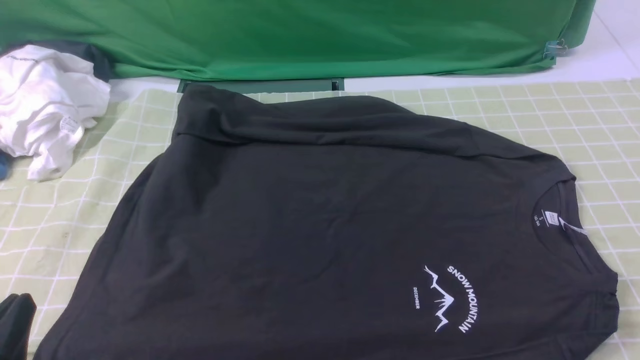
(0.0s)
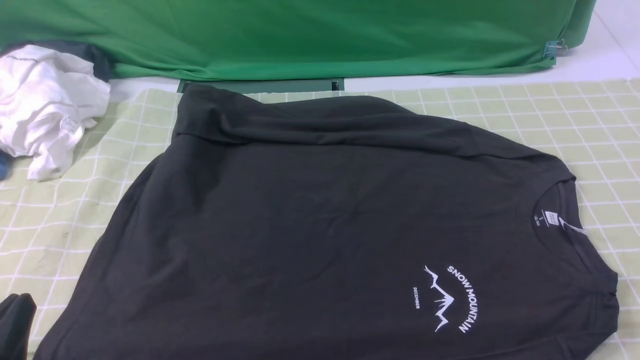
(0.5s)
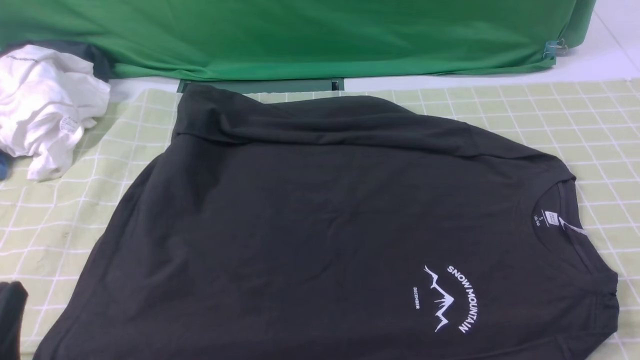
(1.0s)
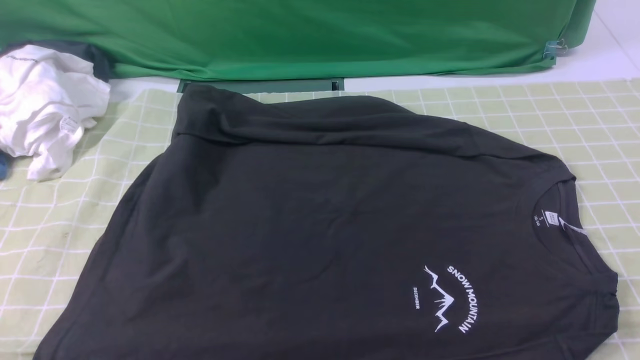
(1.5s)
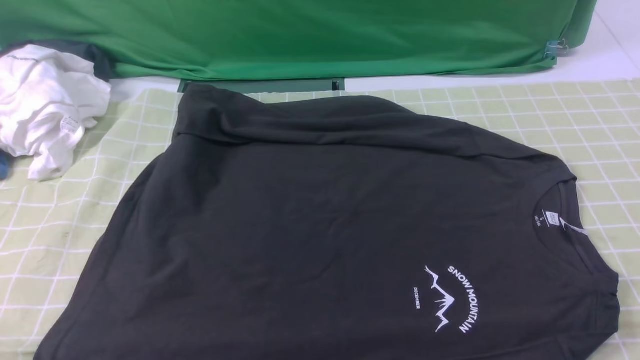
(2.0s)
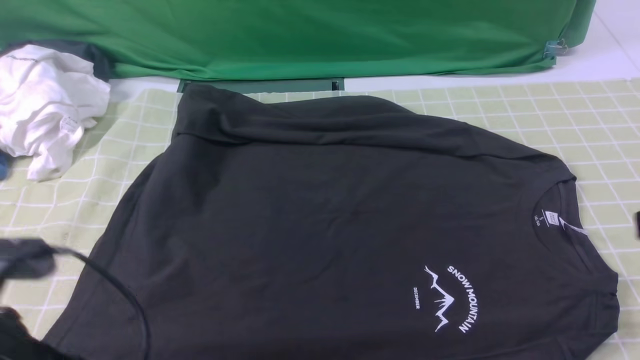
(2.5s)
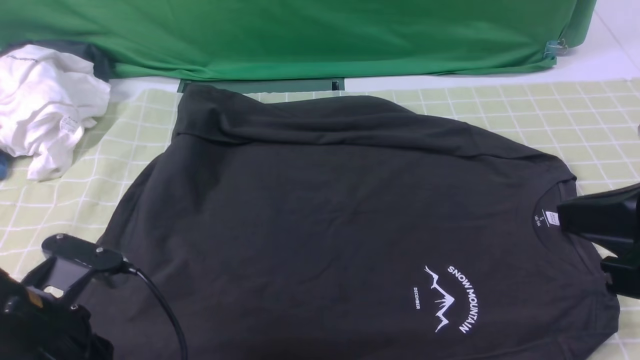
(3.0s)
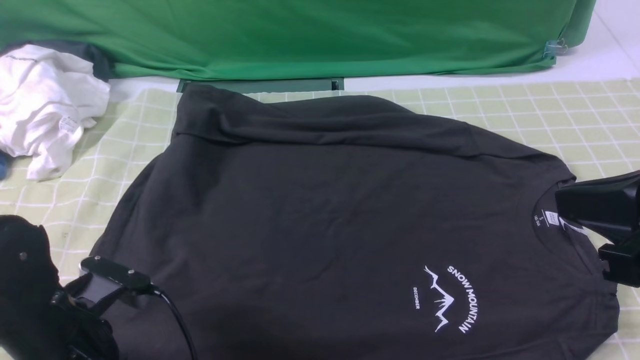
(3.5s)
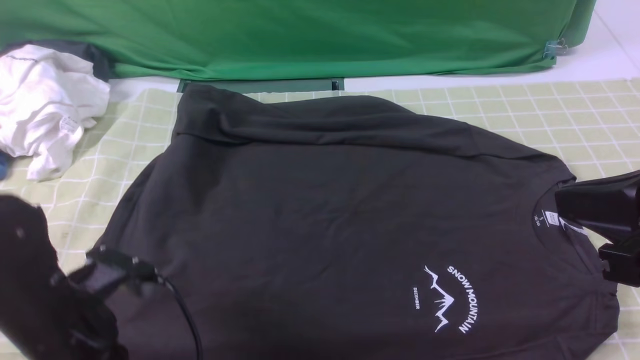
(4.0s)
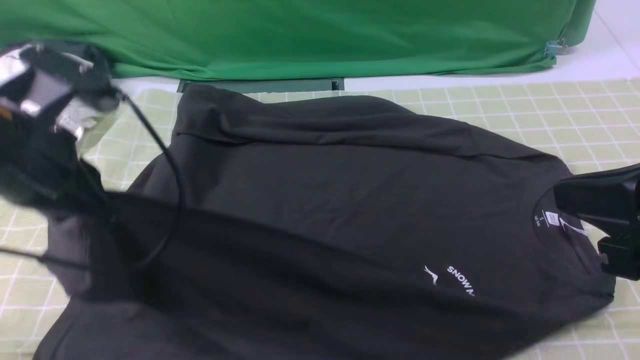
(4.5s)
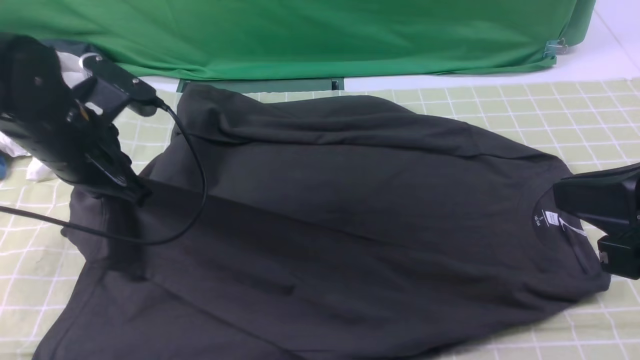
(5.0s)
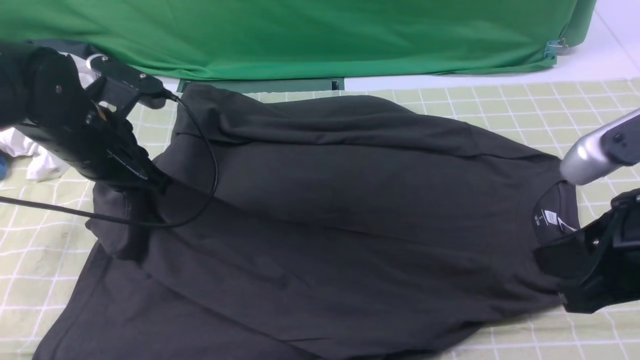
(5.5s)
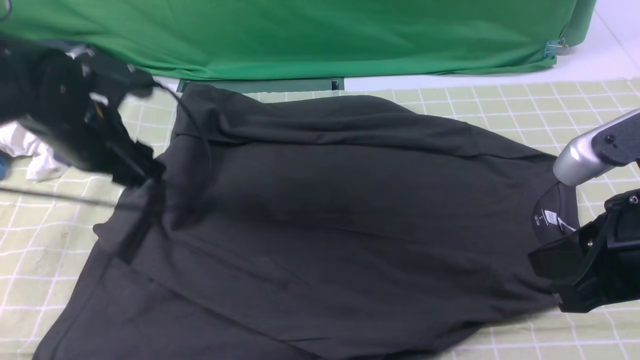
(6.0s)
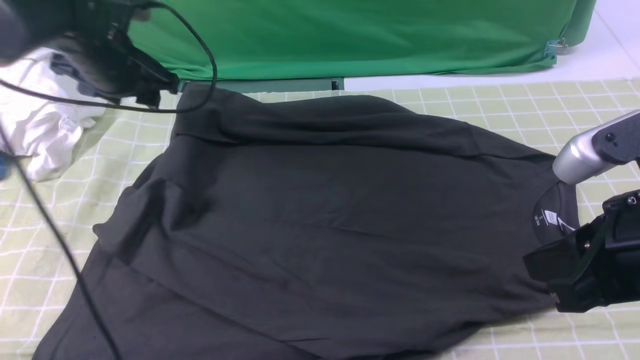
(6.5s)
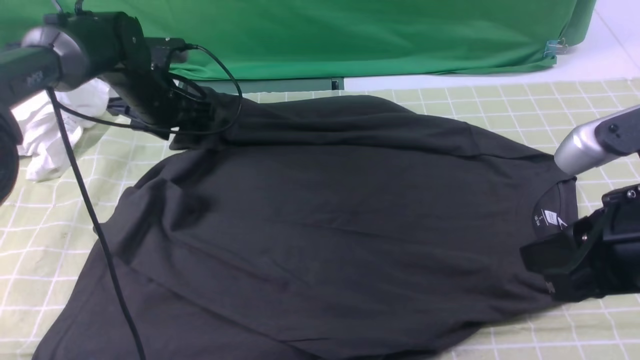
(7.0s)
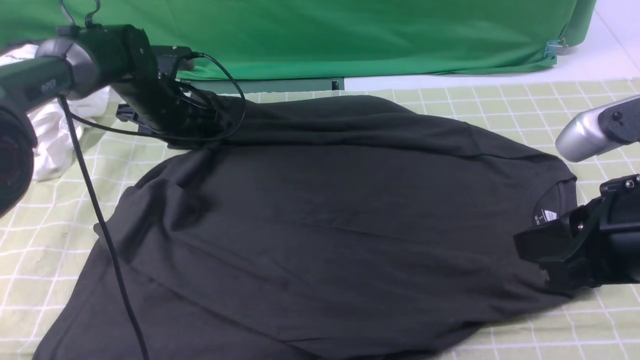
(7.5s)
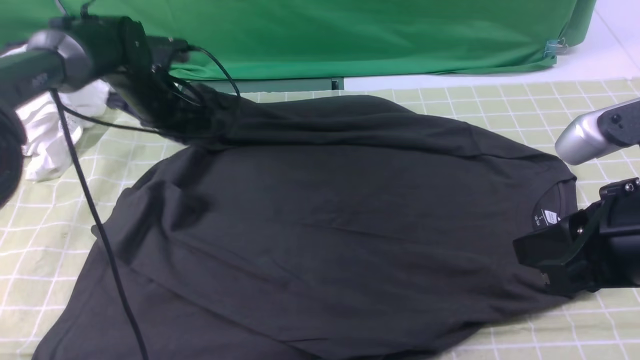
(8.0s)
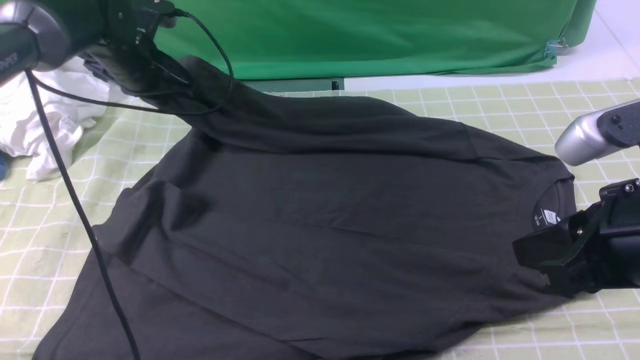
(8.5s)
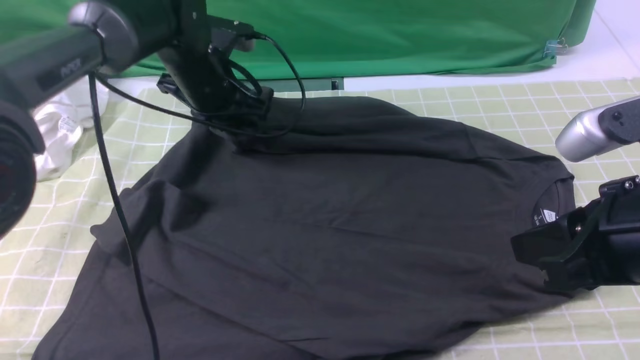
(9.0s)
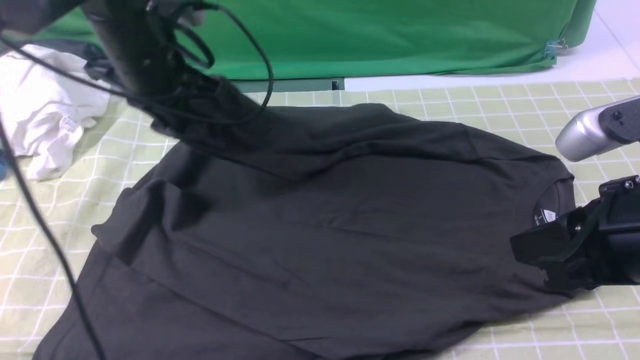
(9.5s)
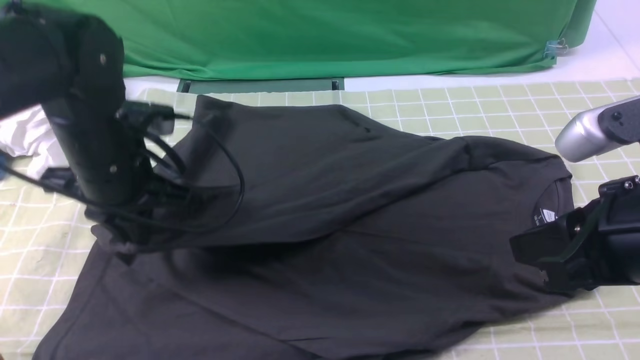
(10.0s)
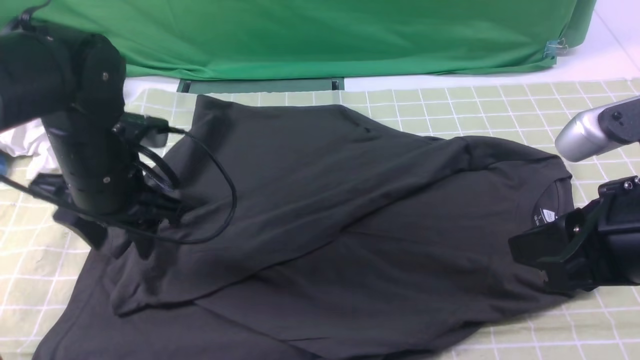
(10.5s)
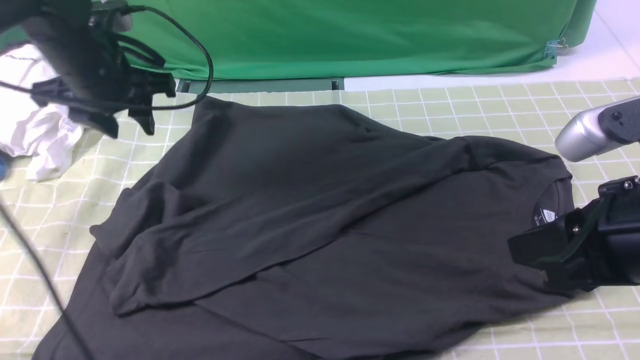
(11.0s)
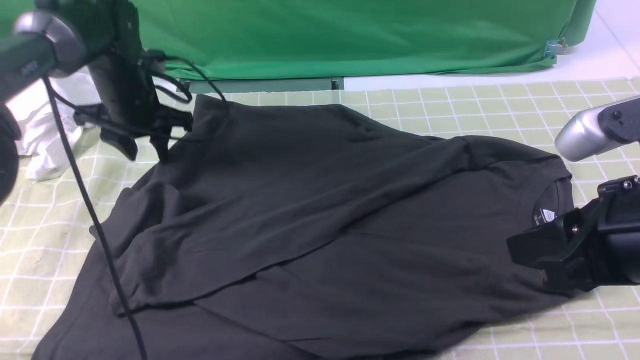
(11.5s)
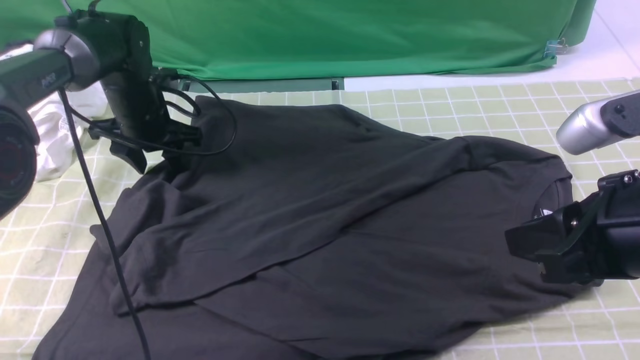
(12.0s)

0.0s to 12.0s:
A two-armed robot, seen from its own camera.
Step, 0.0s to 3.5s: use the left arm to clamp the cuff closest to it.
Step, 4.0s to 5.5s: use the left arm to drag and place the cuff at the centered position on the left edge of the fabric.
Step, 6.5s to 7.5s: use the left arm to clamp the cuff farthest from it.
Step, 8.0s to 10.0s: use the left arm to drag and drop the cuff onto the cuff closest to the left arm.
0.0s to 2.0s: The left gripper moves upward, some 10 cm.
2.0s to 4.0s: The left gripper heads forward and downward, covering some 15 cm, and opens, then closes again, while the right gripper moves to the left, forward and upward, some 15 cm.
4.0s to 6.0s: The left gripper goes about 15 cm forward, and opens its fingers.
6.0s to 8.0s: The left gripper is displaced forward and downward by approximately 15 cm, and closes up.
8.0s to 10.0s: The left gripper moves backward, some 20 cm.
10.0s to 12.0s: The left gripper shifts approximately 20 cm forward and downward, and opens its fingers.

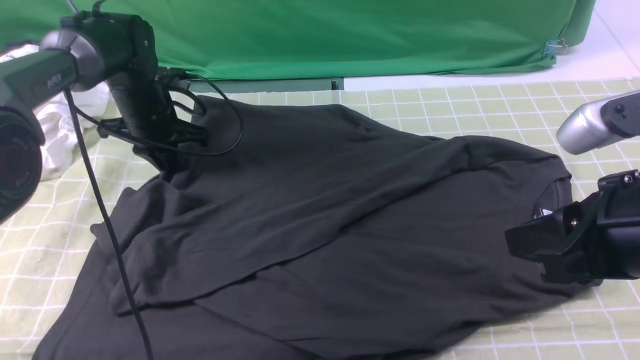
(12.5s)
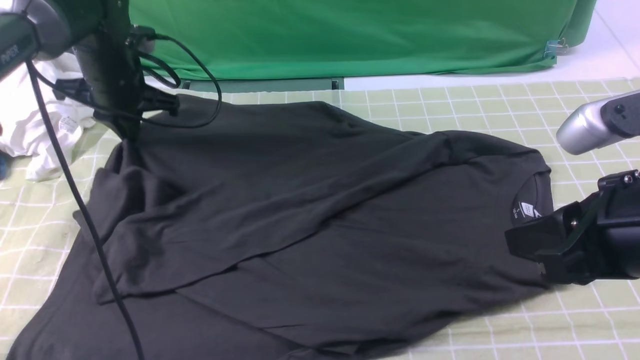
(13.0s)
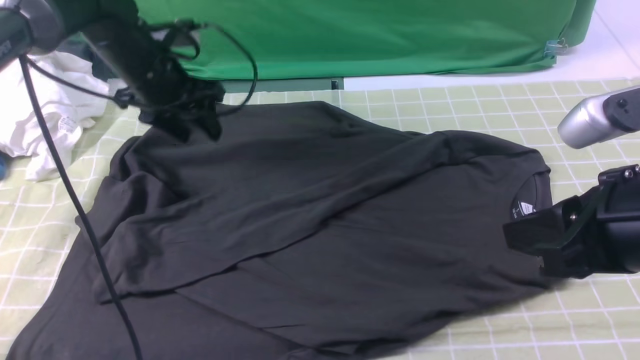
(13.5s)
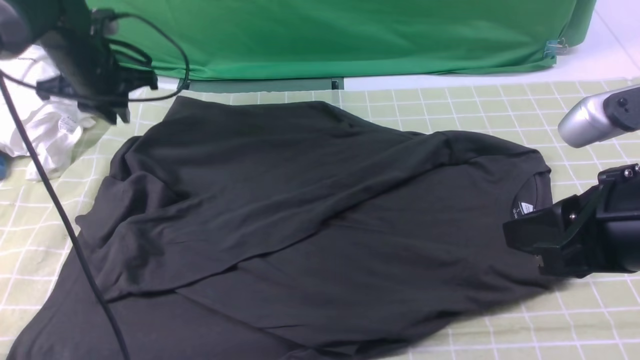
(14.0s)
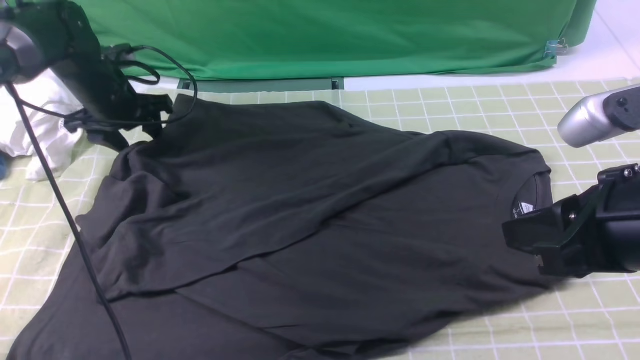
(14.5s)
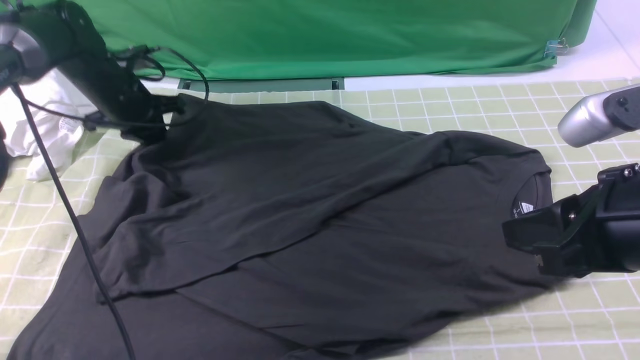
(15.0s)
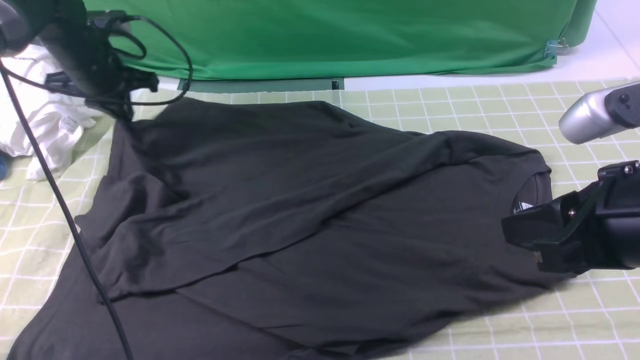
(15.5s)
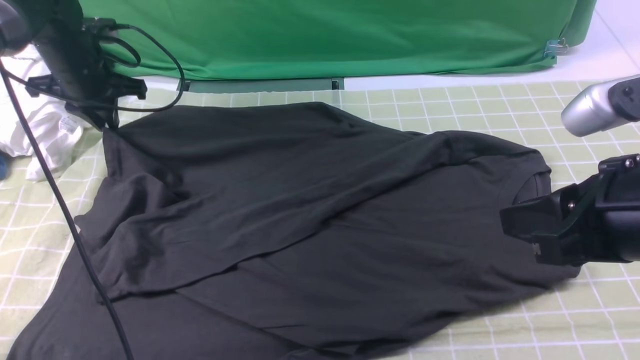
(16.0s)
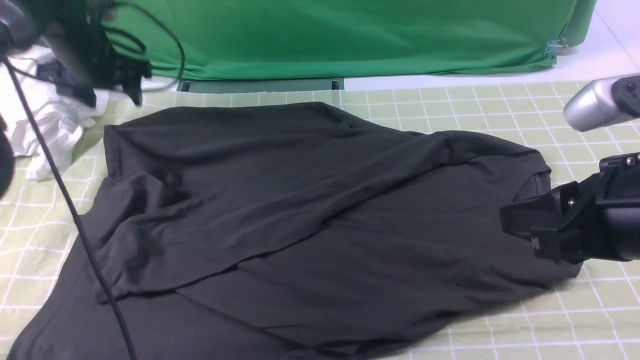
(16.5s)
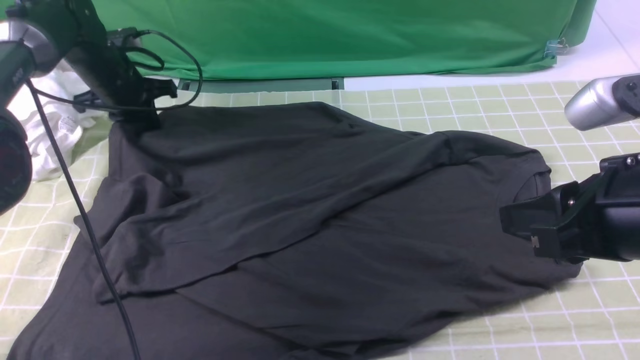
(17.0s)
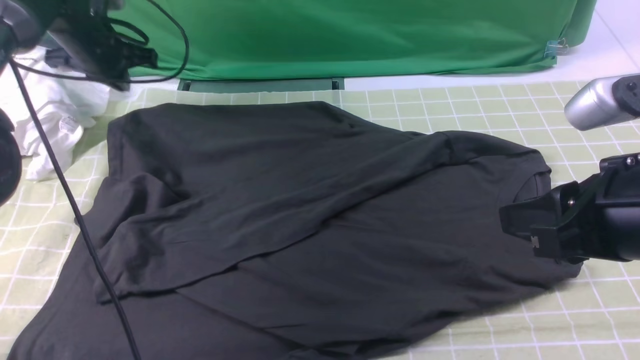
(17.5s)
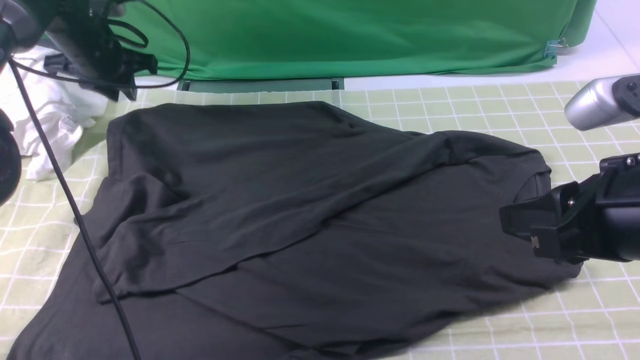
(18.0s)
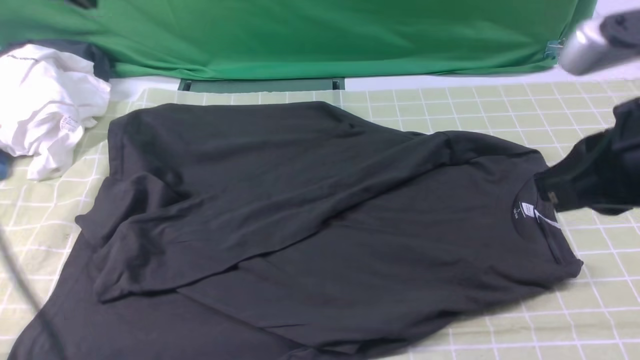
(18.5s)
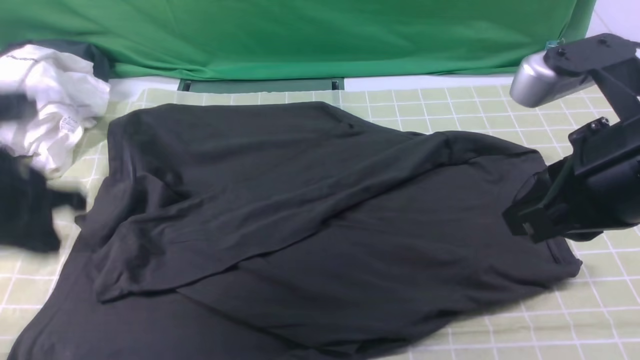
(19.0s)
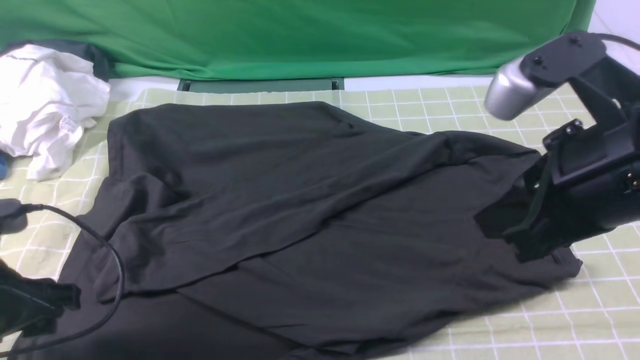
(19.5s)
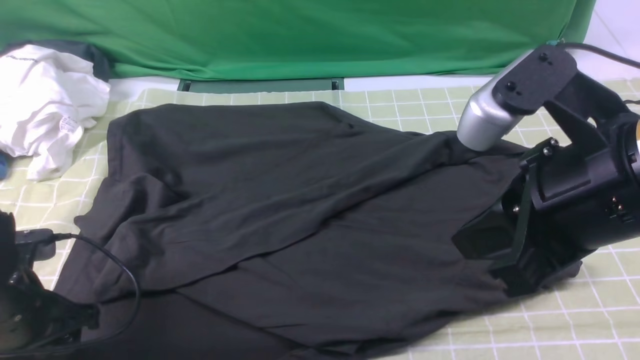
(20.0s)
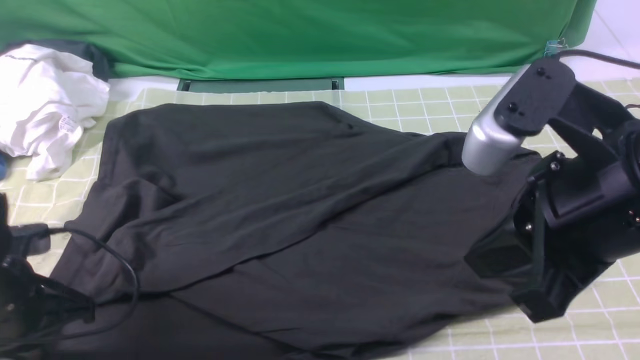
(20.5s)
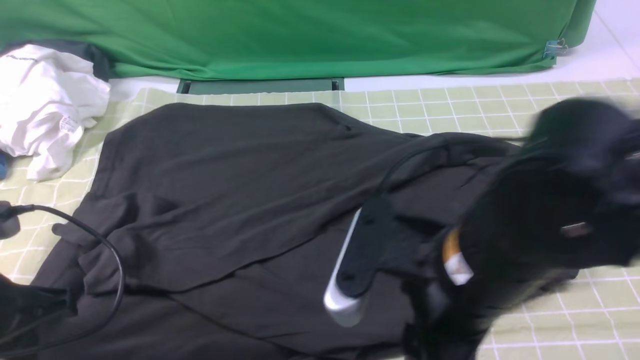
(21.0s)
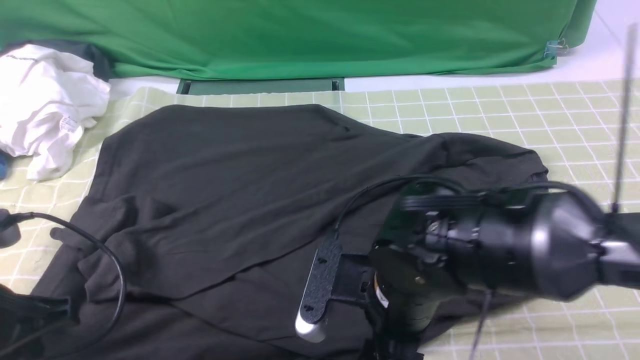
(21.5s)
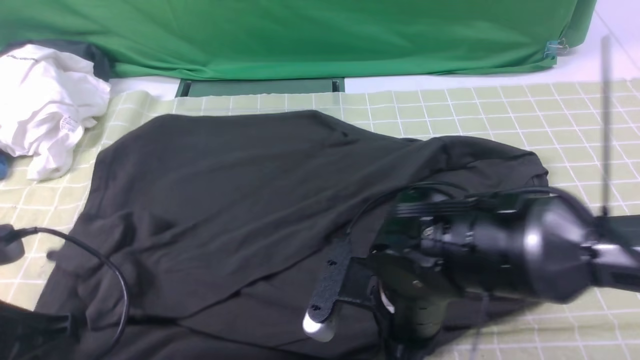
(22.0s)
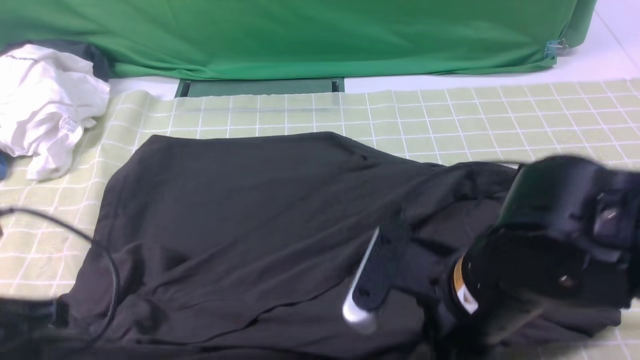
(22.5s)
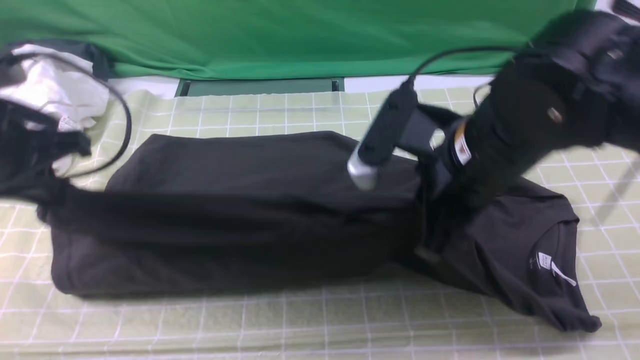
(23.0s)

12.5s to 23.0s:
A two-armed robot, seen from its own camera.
Step, 12.5s to 21.5s: use both arms simultaneously to clamp the lower edge of the clothing fabric.
12.5s to 14.5s: The left gripper ends up some 5 cm from where it was, and opens.
14.5s to 16.5s: The left gripper closes, then opens again.
16.5s to 19.0s: The right gripper closes; the left gripper goes about 30 cm backward, and closes its fingers.
19.0s to 21.0s: The left gripper travels backward and downward by some 10 cm, and opens, then closes again. Meanwhile the right gripper travels to the left and downward by approximately 15 cm, and opens its fingers.
21.0s to 23.0s: The left gripper is displaced forward and upward by approximately 15 cm, while the right gripper moves forward, approximately 10 cm, goes downward and returns, roughly 10 cm each way, and closes.
